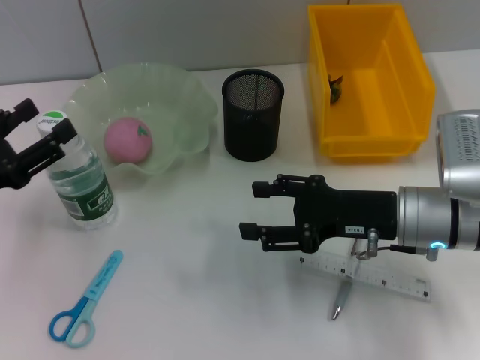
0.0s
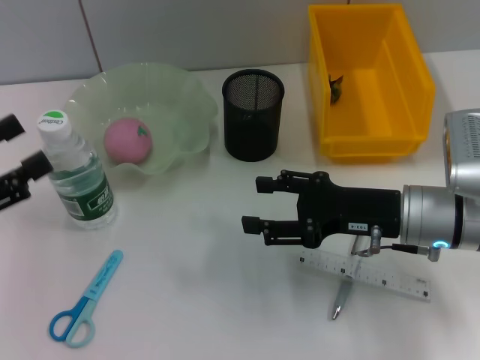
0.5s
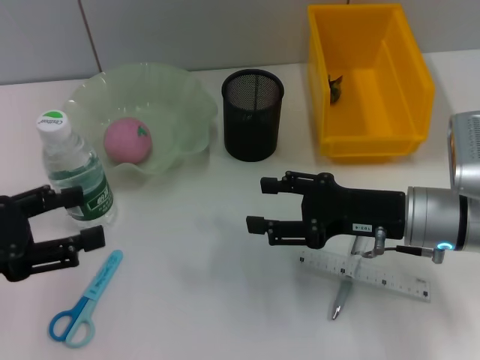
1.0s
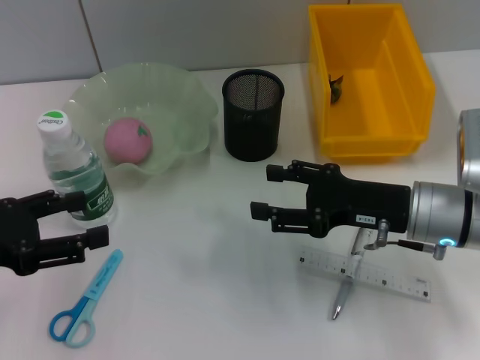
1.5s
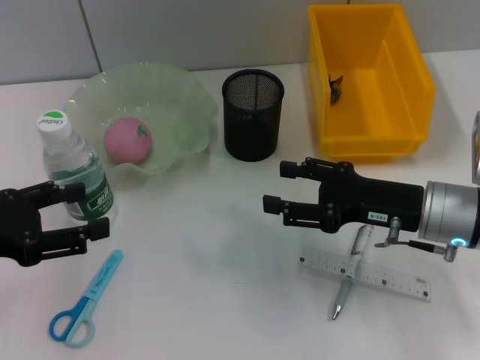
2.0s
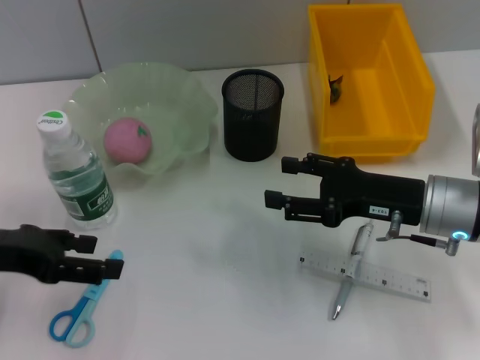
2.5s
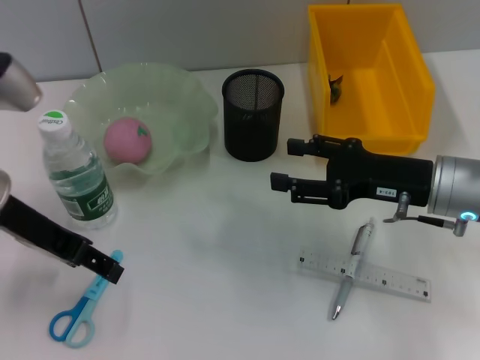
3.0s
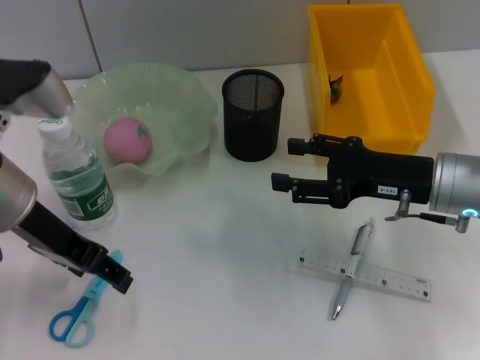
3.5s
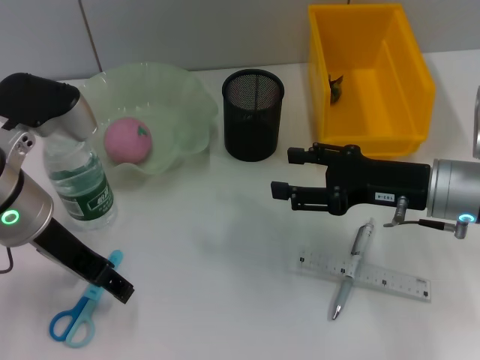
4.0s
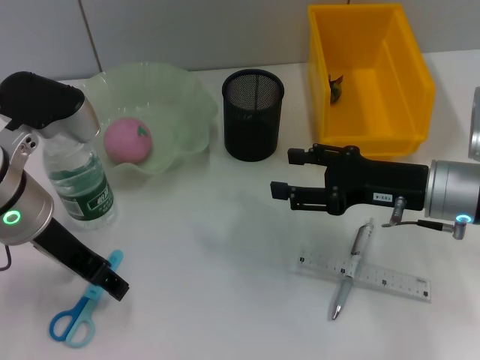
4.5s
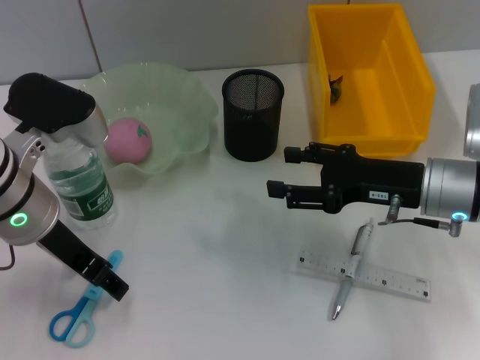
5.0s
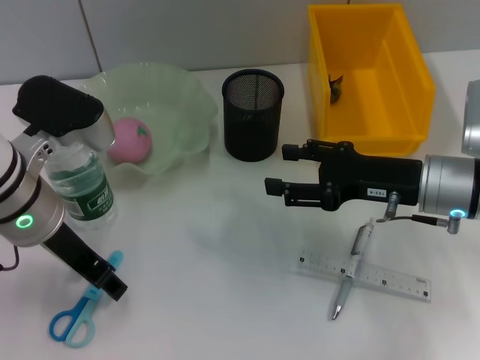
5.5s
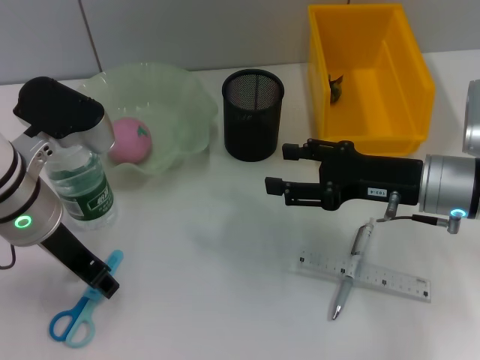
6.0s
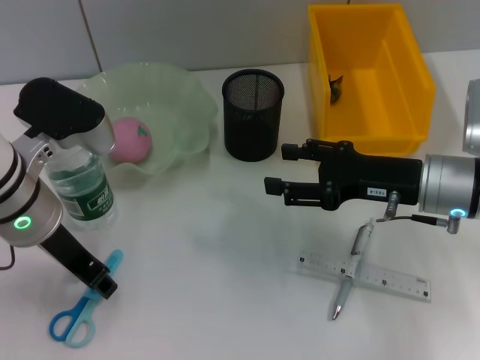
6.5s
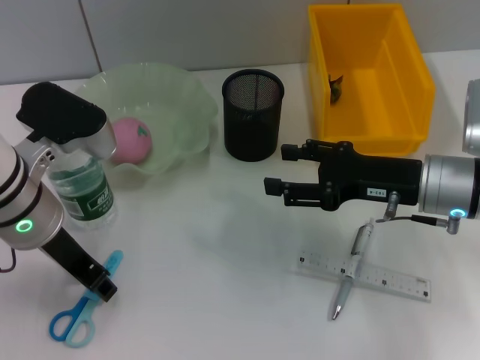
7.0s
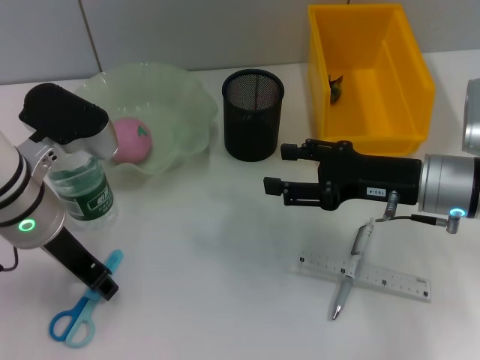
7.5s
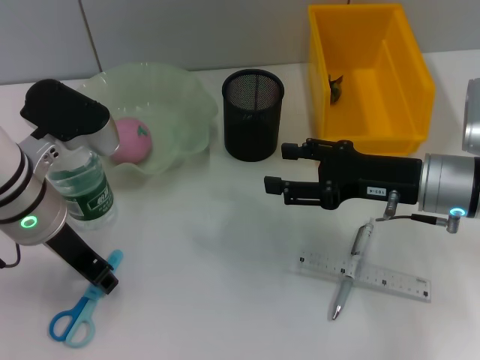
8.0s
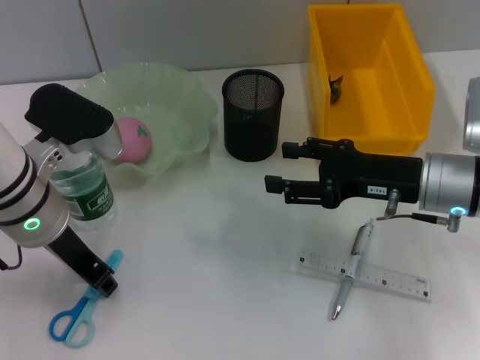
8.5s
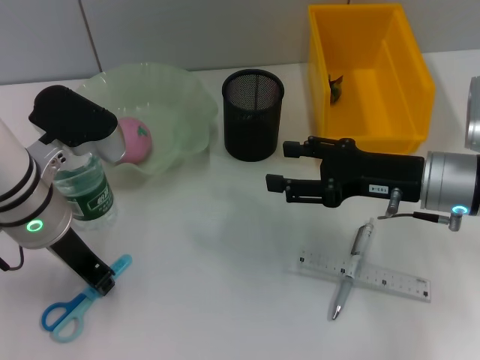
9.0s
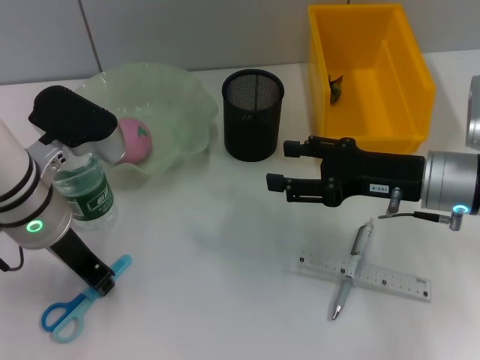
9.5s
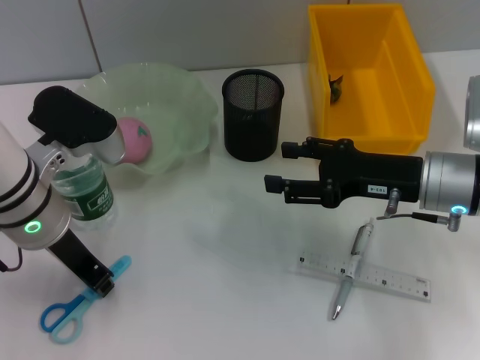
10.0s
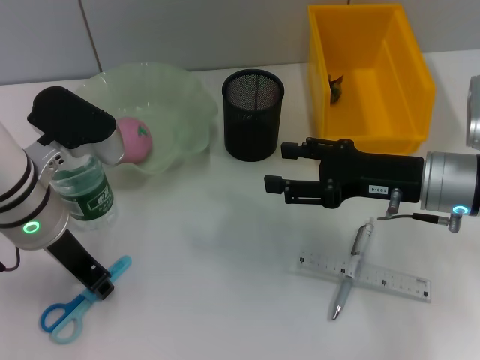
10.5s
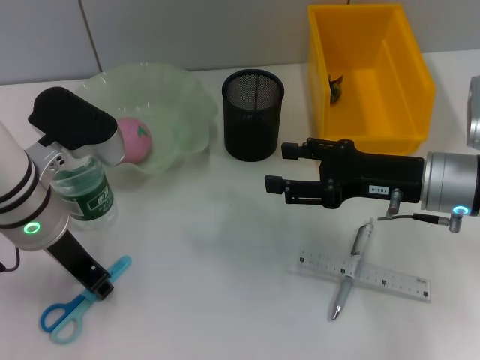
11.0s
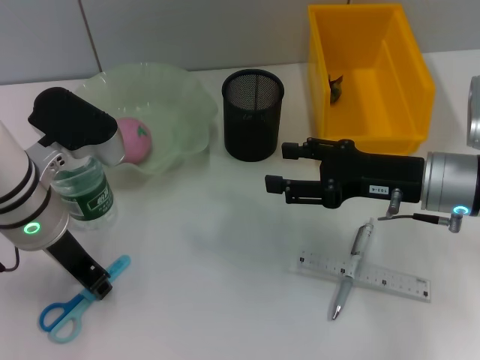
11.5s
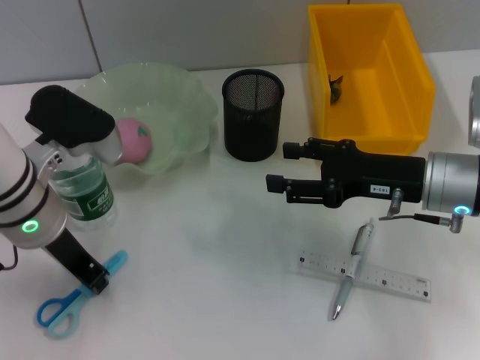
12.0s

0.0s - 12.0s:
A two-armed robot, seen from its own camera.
Step, 1.0s - 9.0s: Grab the blue scissors with the left hand.
2.0s - 4.0s: The left gripper moves to the right and forward, some 15 cm.
4.0s - 6.0s: The grippers make only small movements.
6.0s - 8.0s: Neither gripper changes place.
8.0s - 12.0s: Neither gripper changes place.

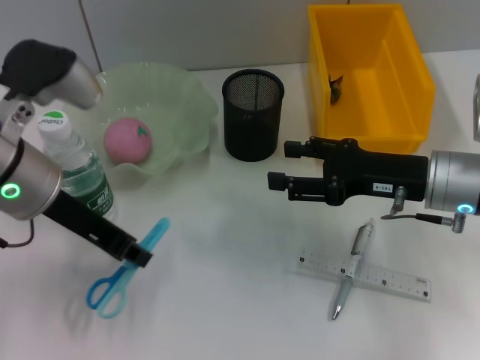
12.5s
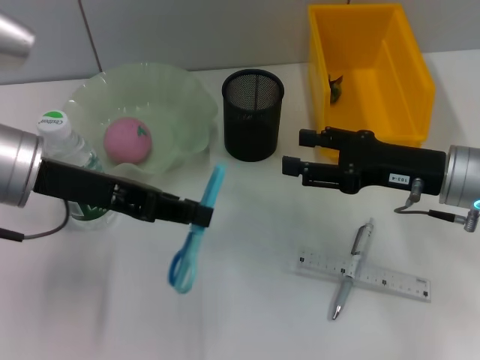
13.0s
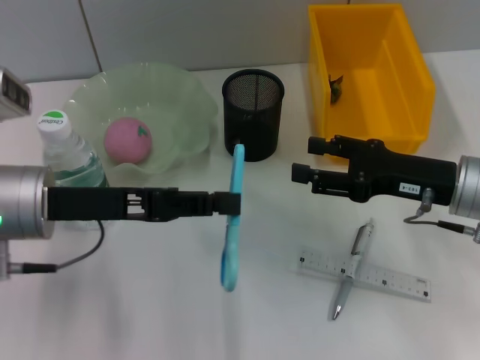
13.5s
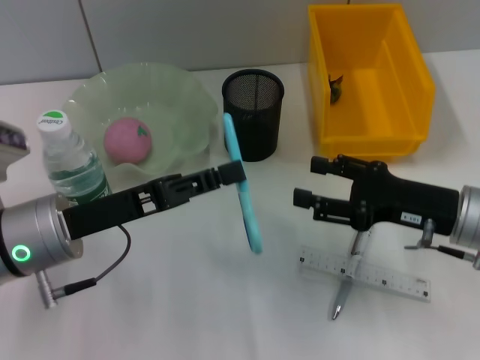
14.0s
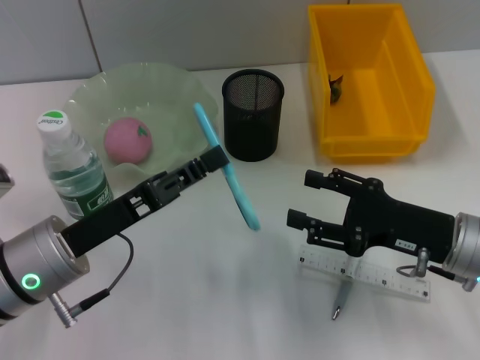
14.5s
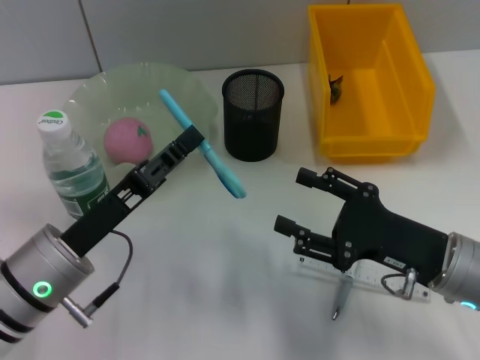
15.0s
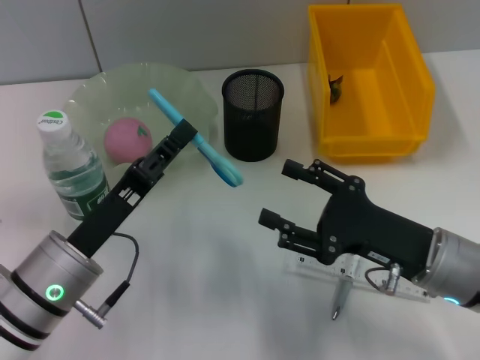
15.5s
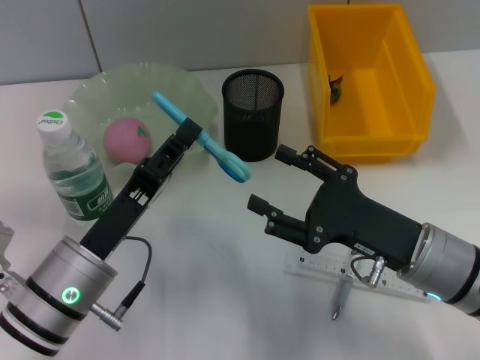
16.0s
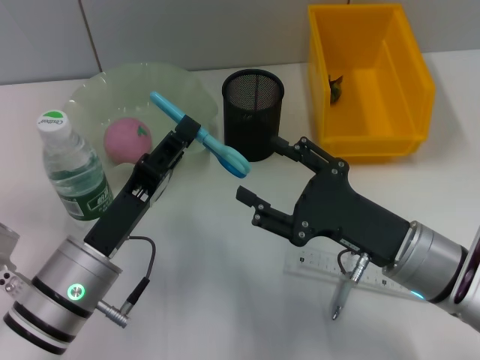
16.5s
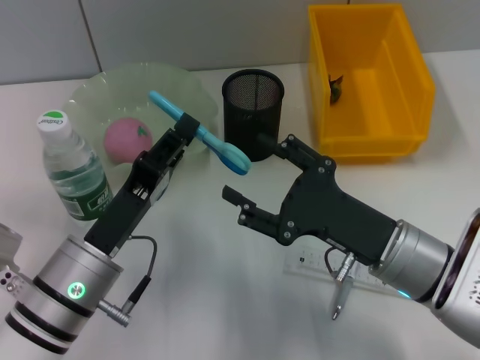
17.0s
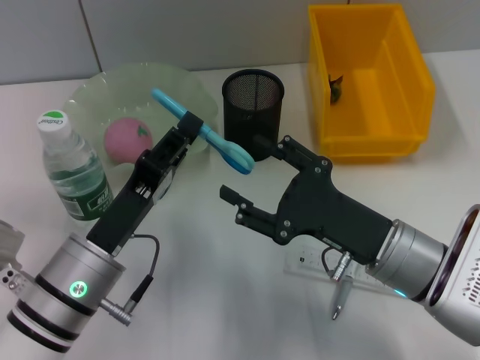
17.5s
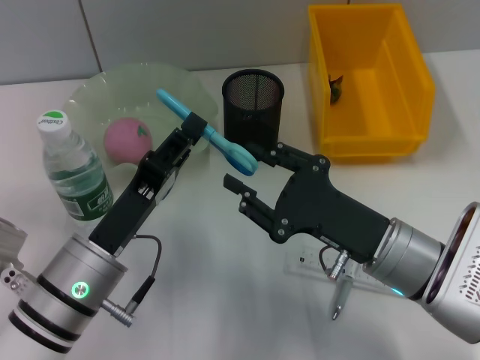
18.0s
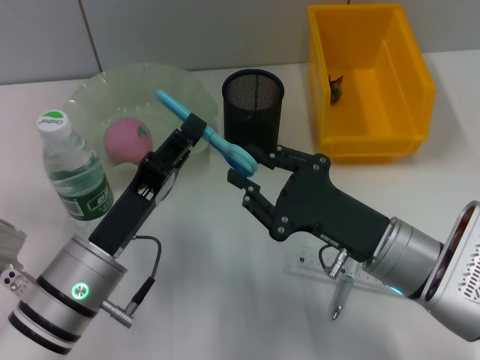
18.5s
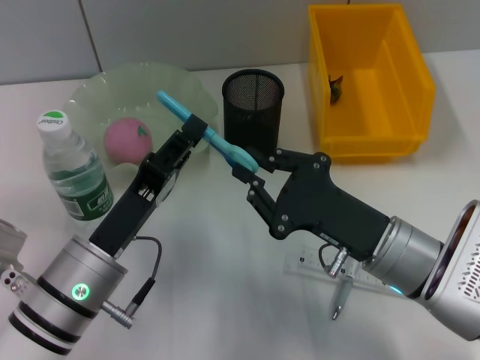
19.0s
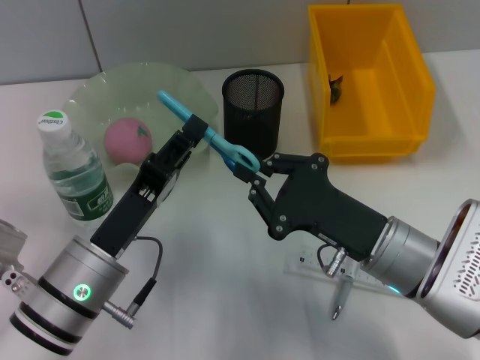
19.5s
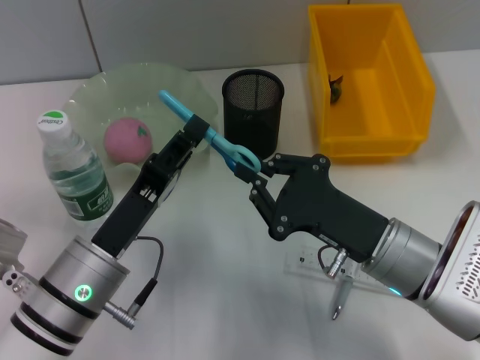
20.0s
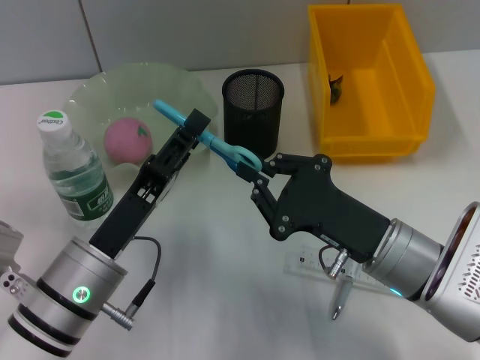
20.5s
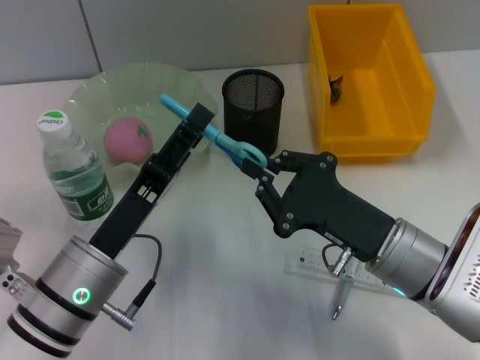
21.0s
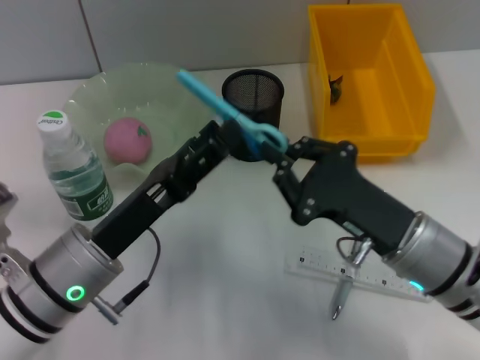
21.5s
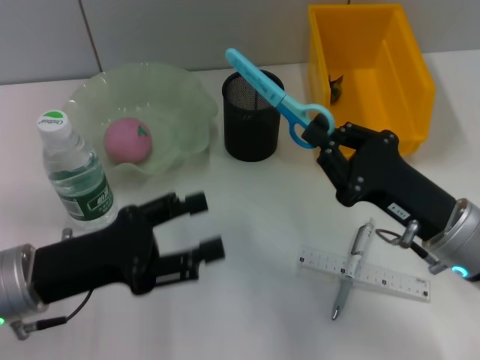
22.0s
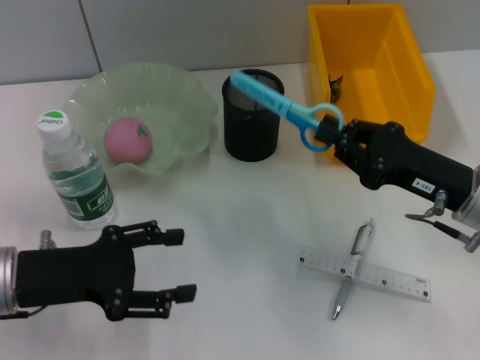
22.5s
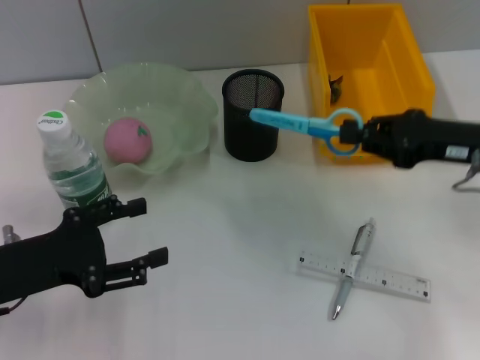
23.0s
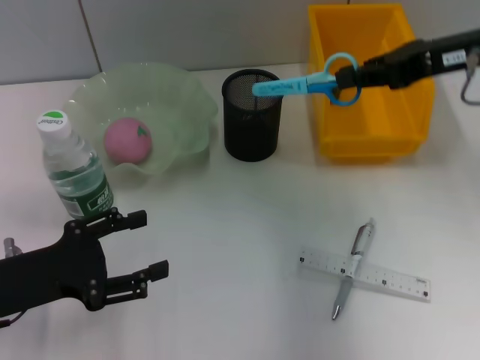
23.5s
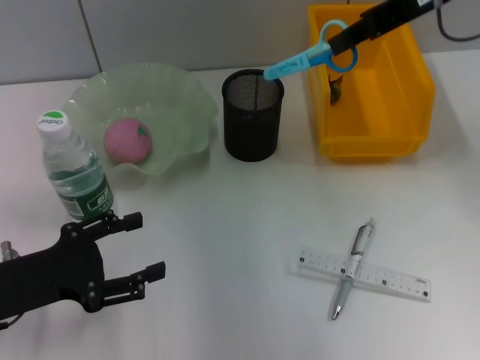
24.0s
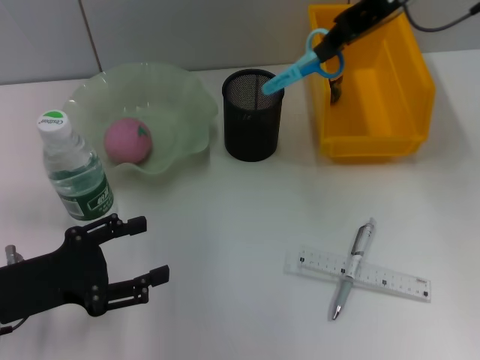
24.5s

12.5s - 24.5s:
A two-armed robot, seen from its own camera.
Step, 12.5s - 21.0s: Pass the blue scissors from the left hand to the right hand.
12.5s - 14.5s: The right gripper is displaced backward by some 5 cm; the left gripper shifts approximately 15 cm downward and backward.
14.5s - 16.5s: The right gripper is displaced to the left by about 5 cm.
16.5s - 18.5s: The right gripper closes up.
18.5s - 20.5s: Both grippers stay about where they are.
20.5s - 22.5s: The left gripper heads to the left, covering approximately 10 cm, and opens up. Meanwhile the right gripper heads to the right, covering approximately 10 cm.
22.5s - 24.5s: The right gripper heads upward and forward, covering about 25 cm.

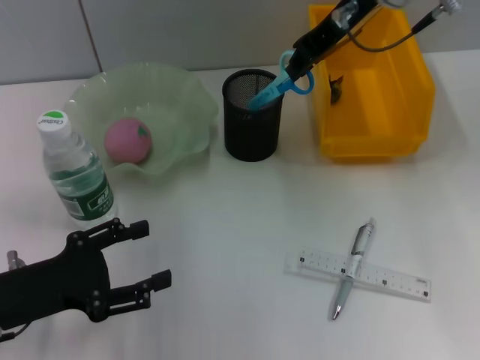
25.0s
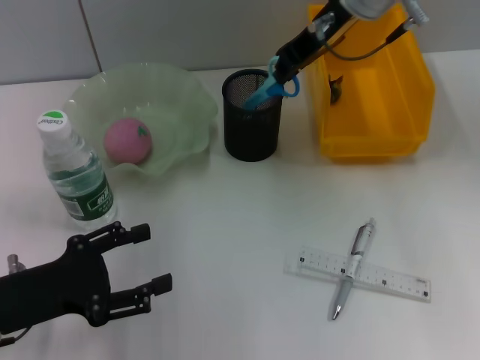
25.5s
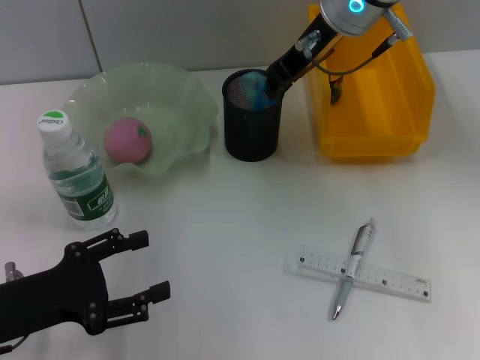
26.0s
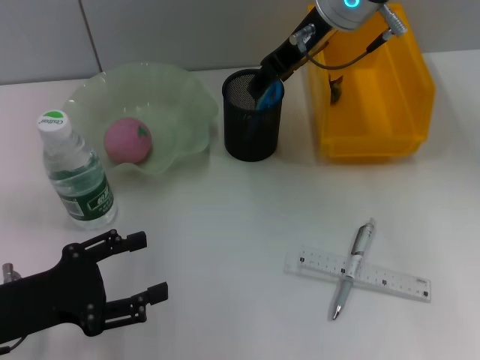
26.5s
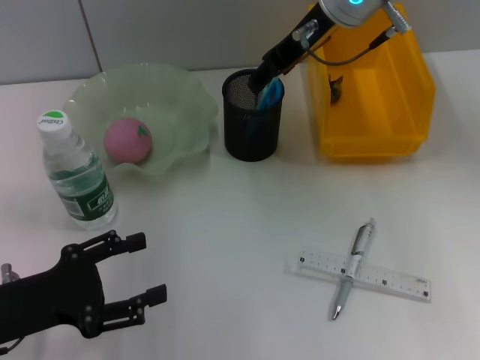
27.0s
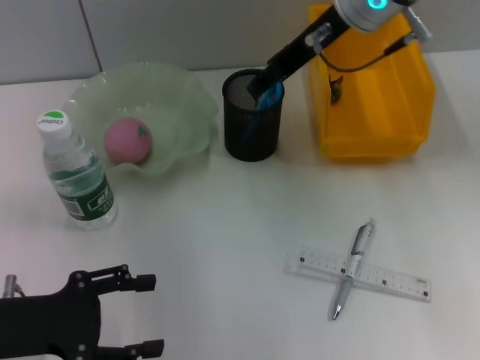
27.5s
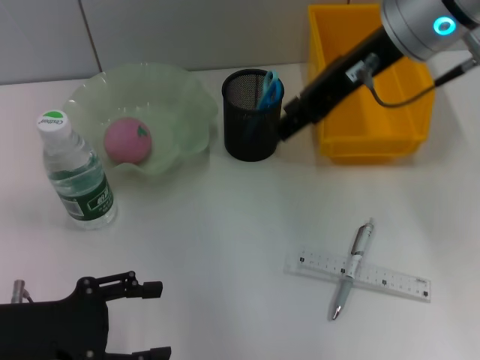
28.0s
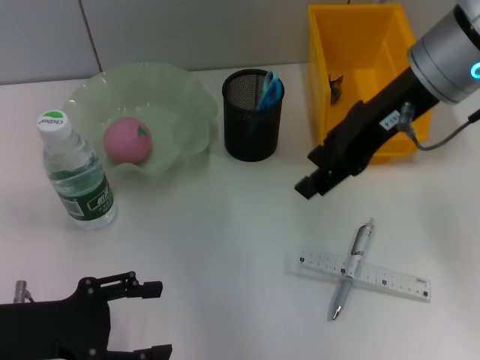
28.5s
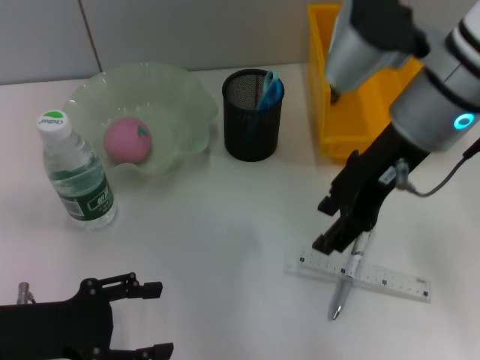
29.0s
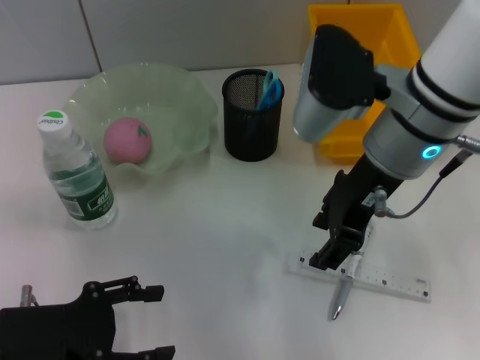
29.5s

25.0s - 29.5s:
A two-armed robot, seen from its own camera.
25.0s - 27.0s: The right gripper opens.
27.0s - 29.5s: The right gripper goes approximately 10 cm backward.
